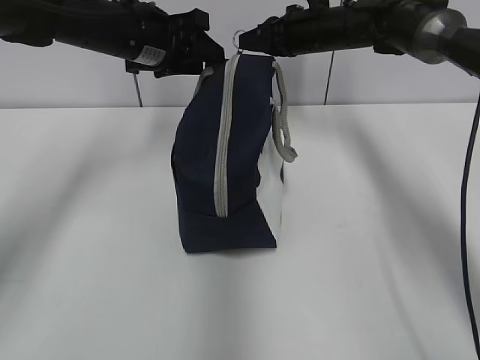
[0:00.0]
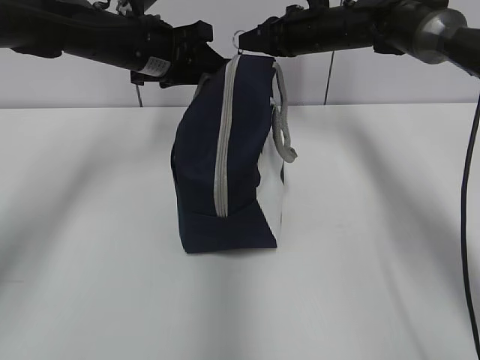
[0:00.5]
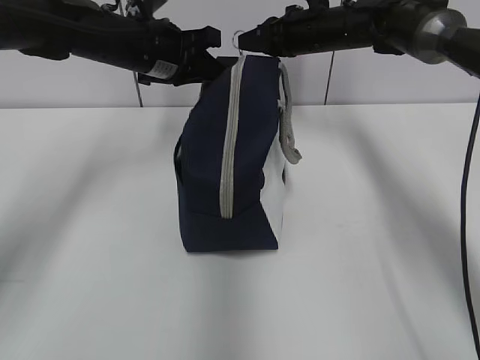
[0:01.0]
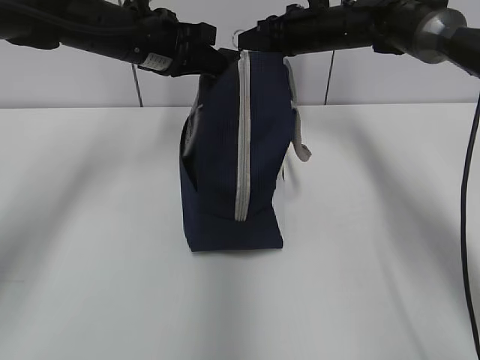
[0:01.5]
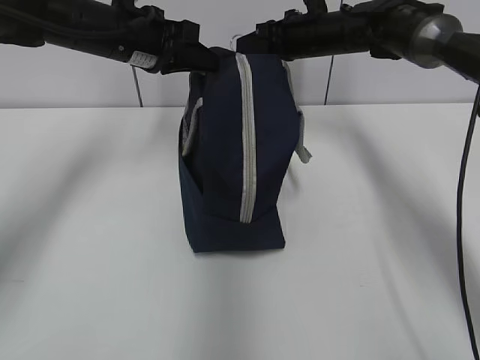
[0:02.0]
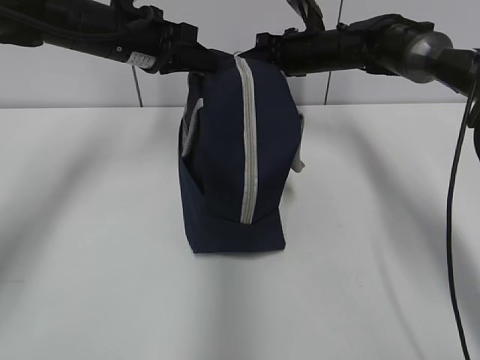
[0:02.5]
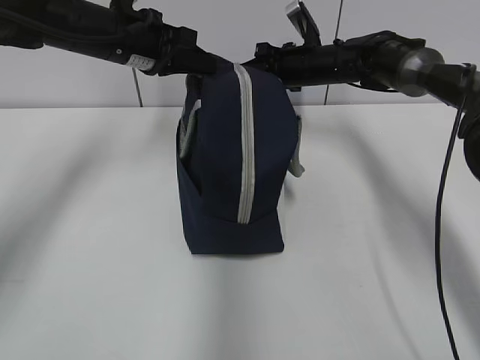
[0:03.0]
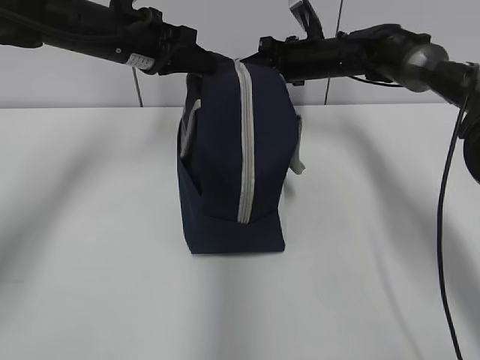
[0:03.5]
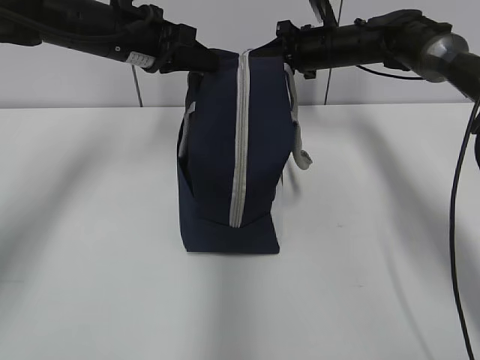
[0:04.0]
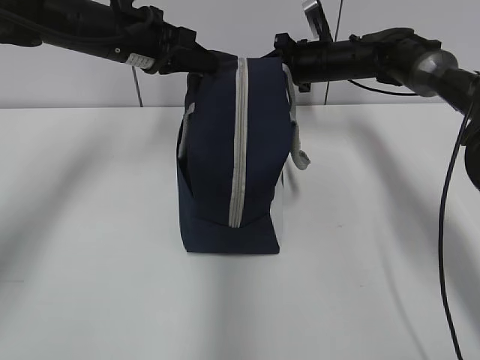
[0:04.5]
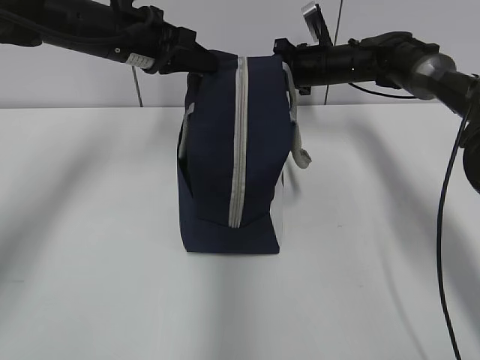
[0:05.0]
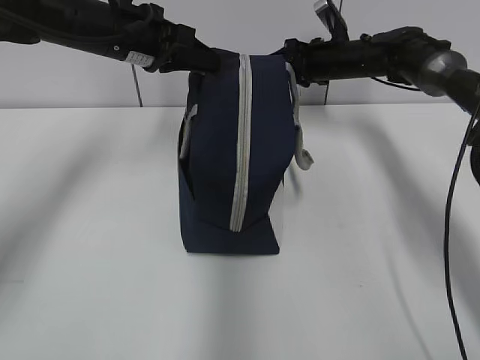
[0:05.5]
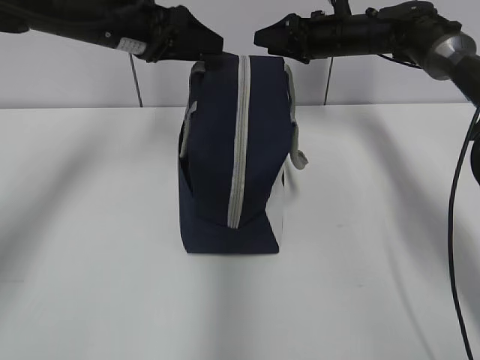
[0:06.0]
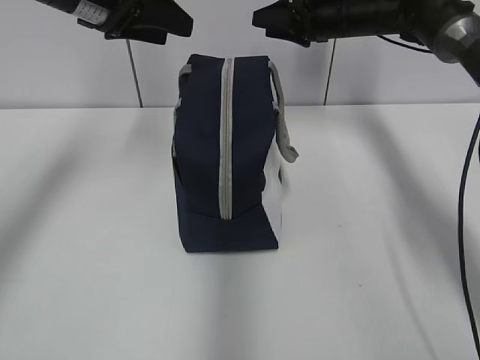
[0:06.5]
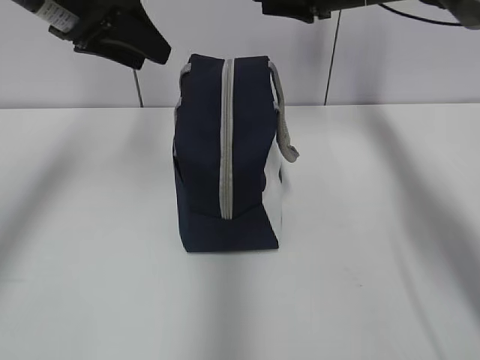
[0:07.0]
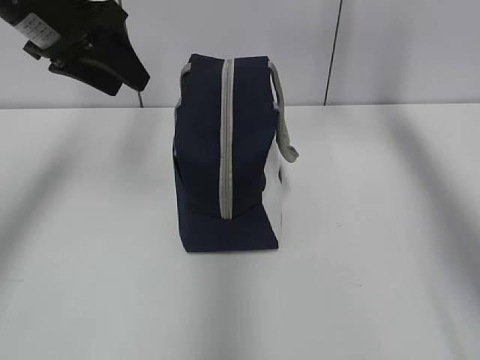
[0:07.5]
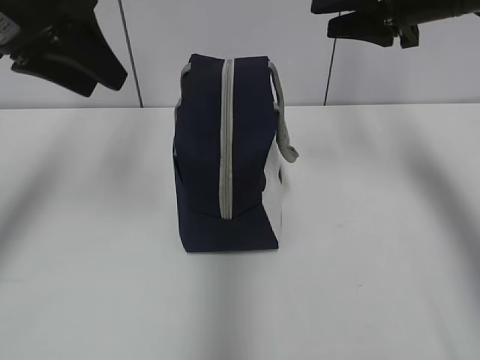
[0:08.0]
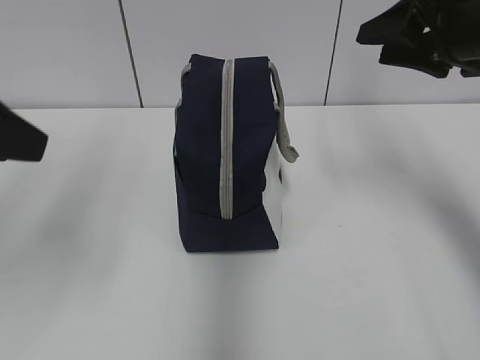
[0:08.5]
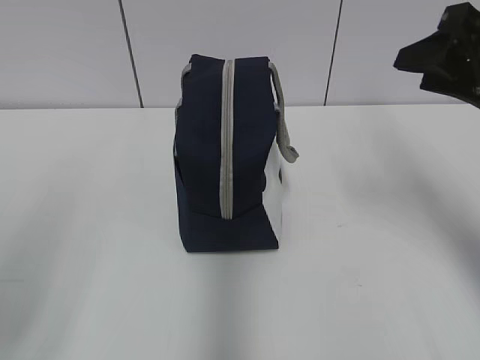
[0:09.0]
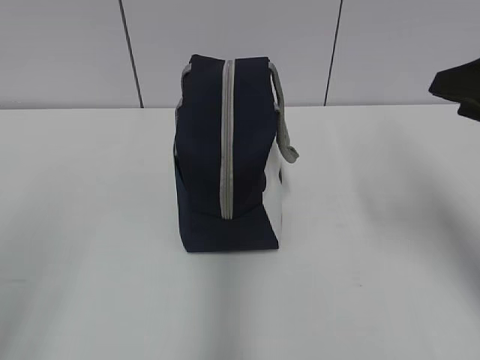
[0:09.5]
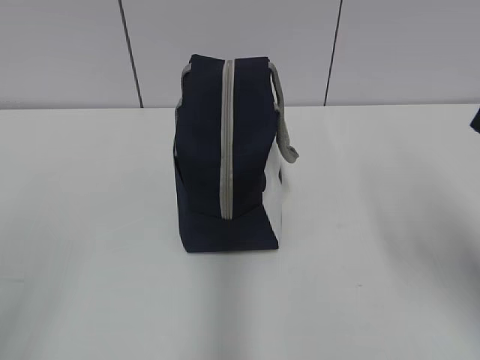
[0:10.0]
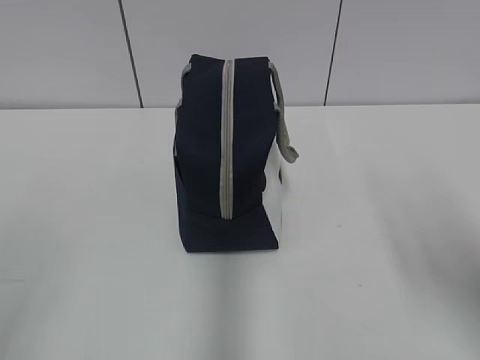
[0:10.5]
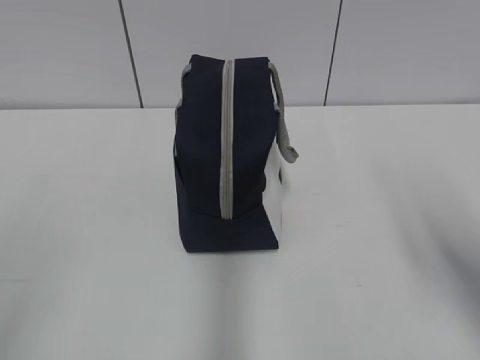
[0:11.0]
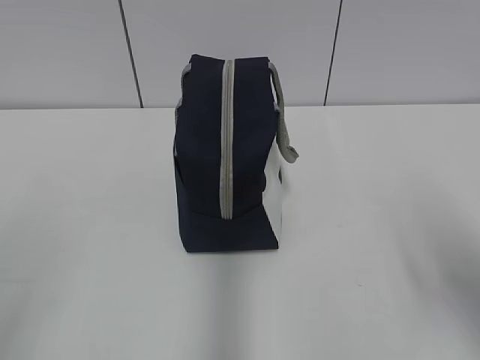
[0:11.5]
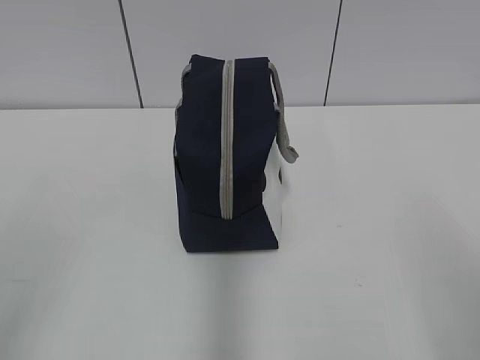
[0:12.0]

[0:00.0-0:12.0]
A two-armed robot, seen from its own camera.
Step, 0:00.0 to 0:05.0: Pull the zipper with your right hand.
0:00.0 to 0:02.0: The left gripper closes its fingers.
0:04.0 to 0:06.0: The right gripper opens. Meanwhile the left gripper opens.
0:06.0 to 0:08.0: The right gripper goes some 20 cm backward and upward. Meanwhile the left gripper heads backward, upward and to the left, covering approximately 15 cm.
0:08.0 to 0:10.0: Both grippers move backward, about 25 cm.
0:10.0 to 0:12.0: The right gripper moves backward, approximately 10 cm.

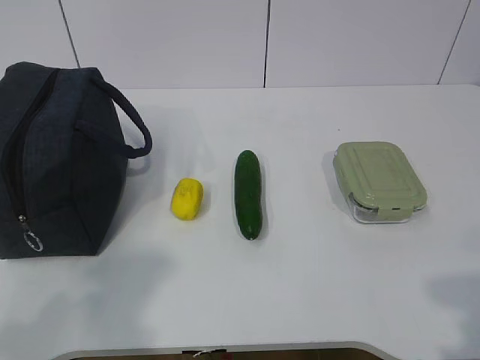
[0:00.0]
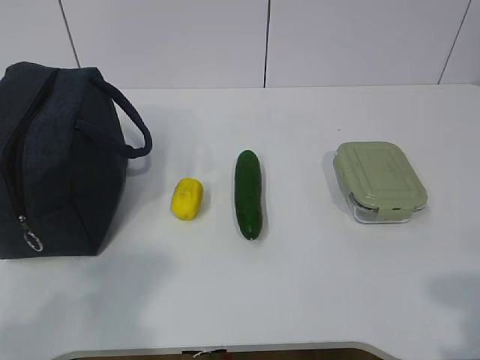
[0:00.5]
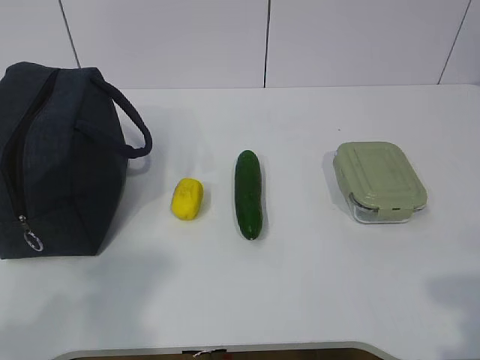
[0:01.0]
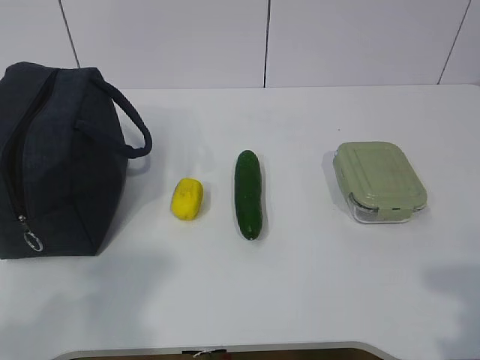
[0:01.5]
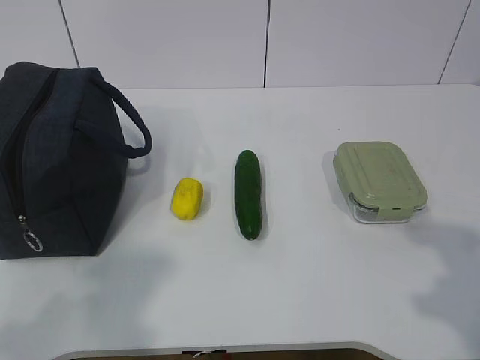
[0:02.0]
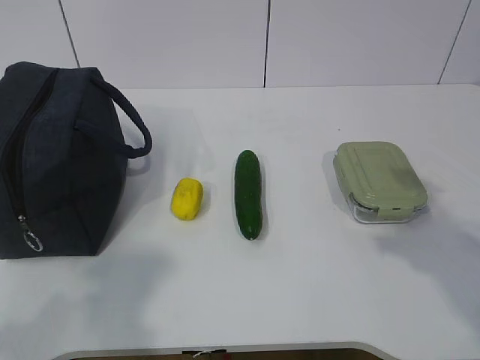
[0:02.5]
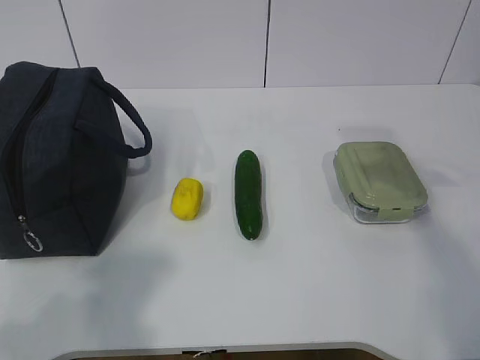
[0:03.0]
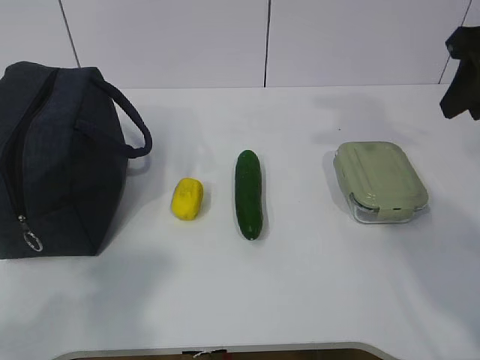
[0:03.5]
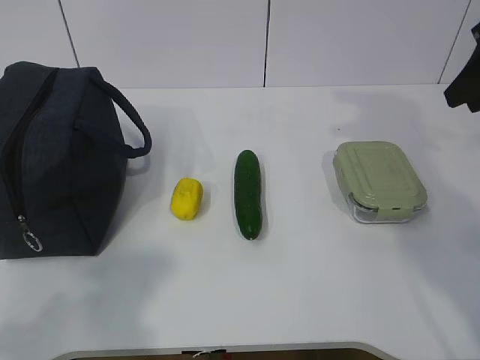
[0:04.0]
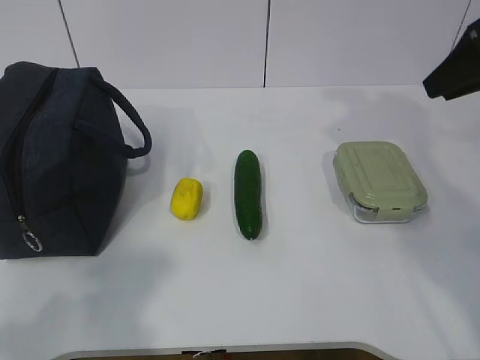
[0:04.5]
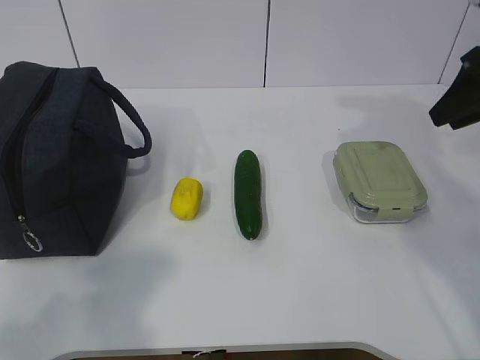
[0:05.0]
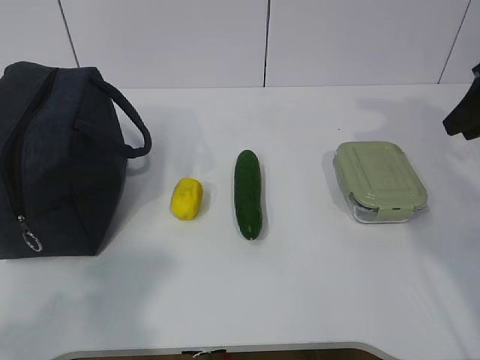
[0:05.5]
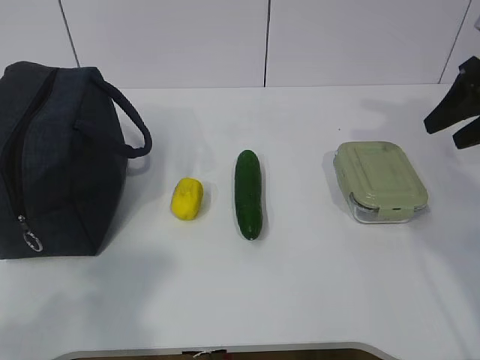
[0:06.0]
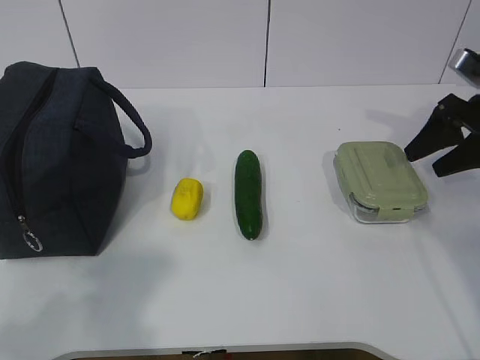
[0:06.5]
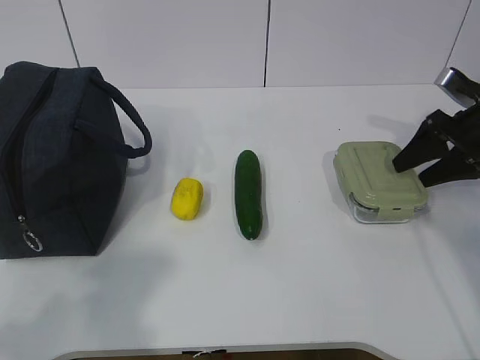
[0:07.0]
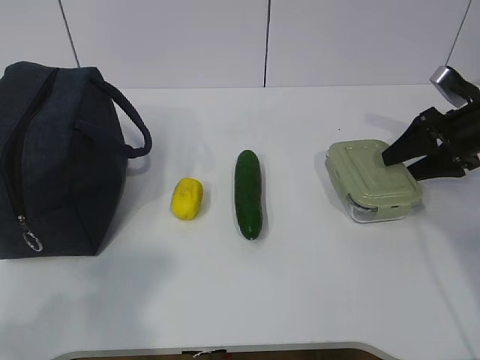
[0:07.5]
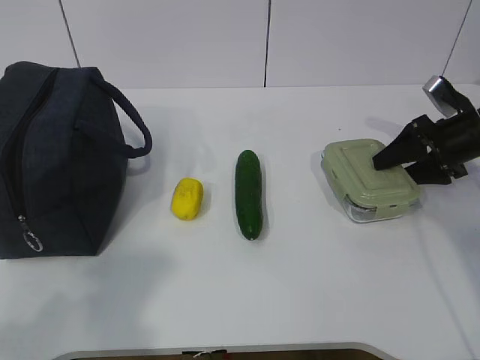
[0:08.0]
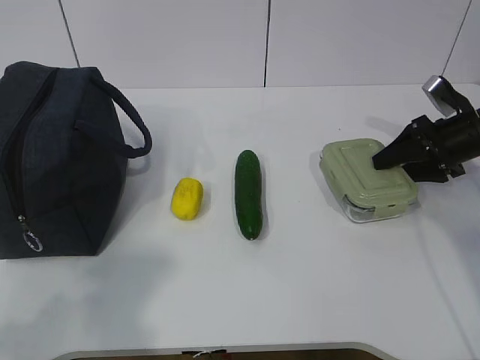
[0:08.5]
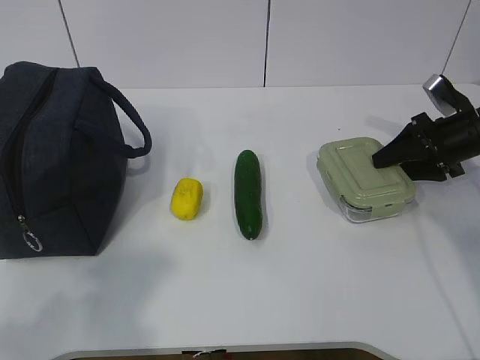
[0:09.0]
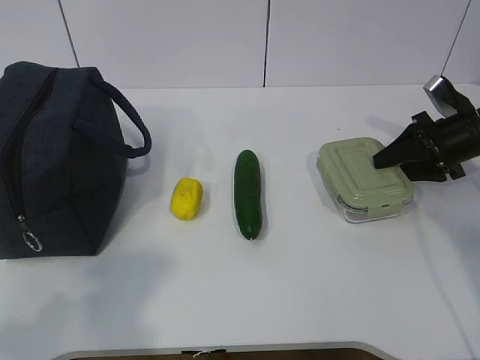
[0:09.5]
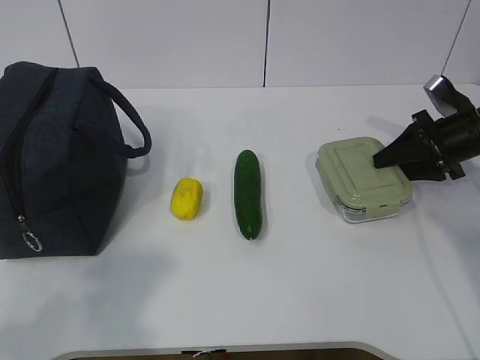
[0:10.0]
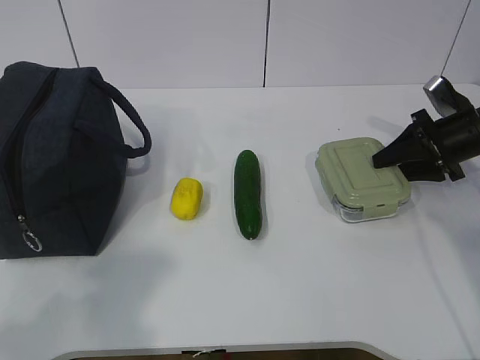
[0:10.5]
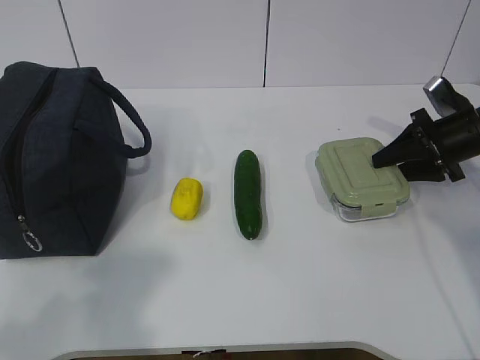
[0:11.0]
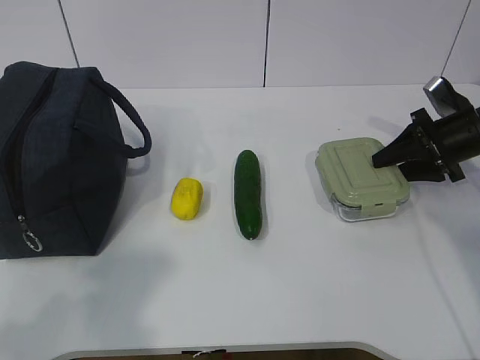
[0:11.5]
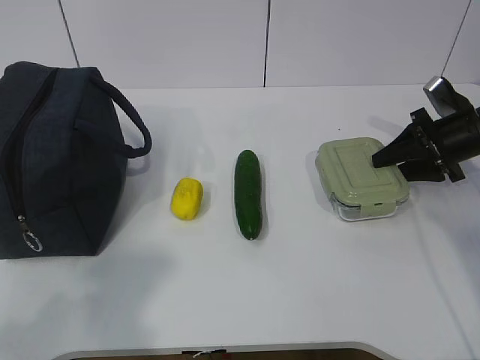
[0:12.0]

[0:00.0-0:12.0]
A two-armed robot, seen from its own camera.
Step, 0:00.0 to 0:08.0: Grab the lunch box with your right hand.
0:02.0 to 0:04.0: The right gripper heads forward, covering roughly 30 cm.
0:04.0 to 0:06.0: The right gripper is displaced downward by approximately 5 cm.
0:06.0 to 0:08.0: The right gripper shifts about 10 cm downward.
0:08.0 to 0:10.0: Both grippers stay about where they are.
0:10.0 to 0:12.0: Neither gripper changes place.

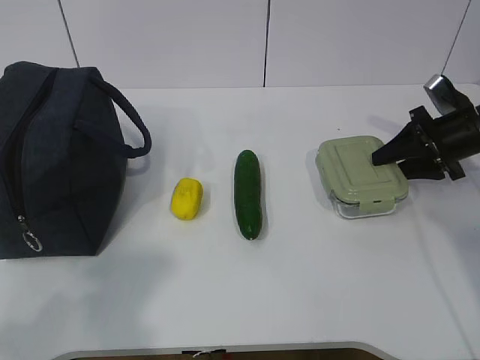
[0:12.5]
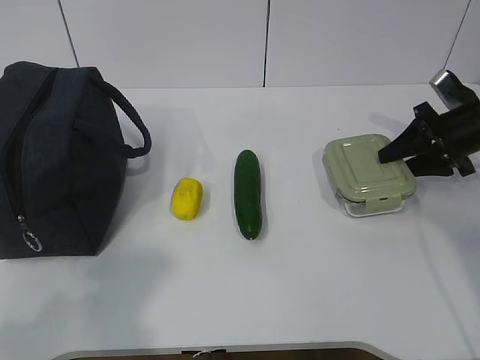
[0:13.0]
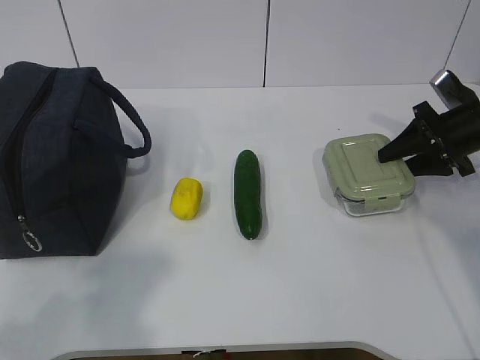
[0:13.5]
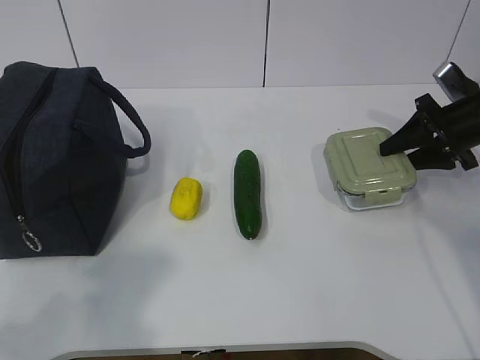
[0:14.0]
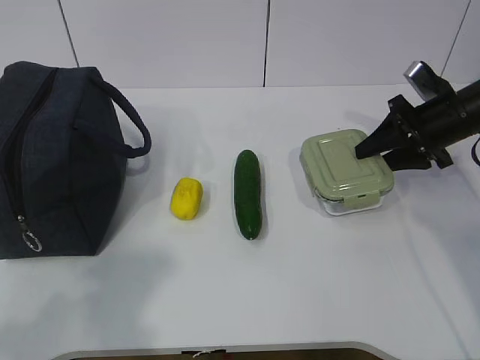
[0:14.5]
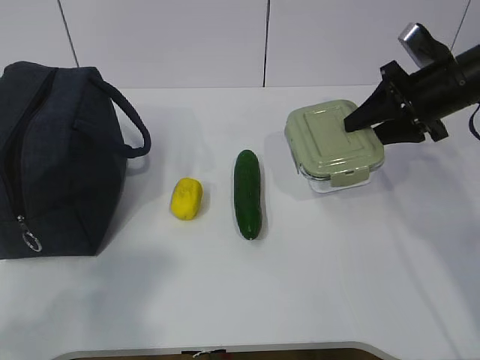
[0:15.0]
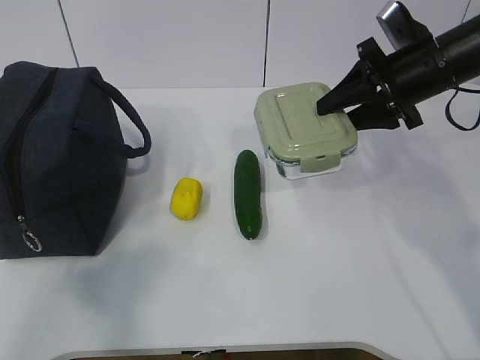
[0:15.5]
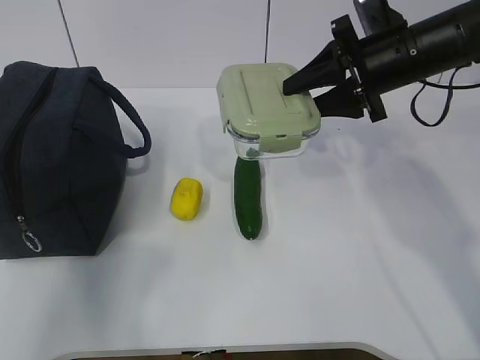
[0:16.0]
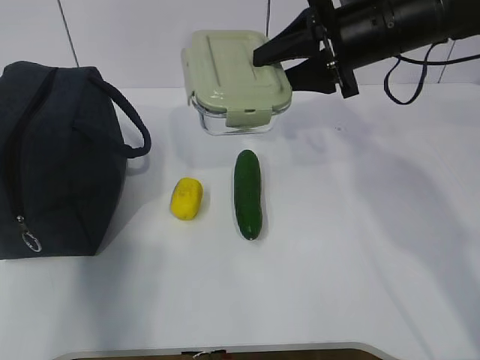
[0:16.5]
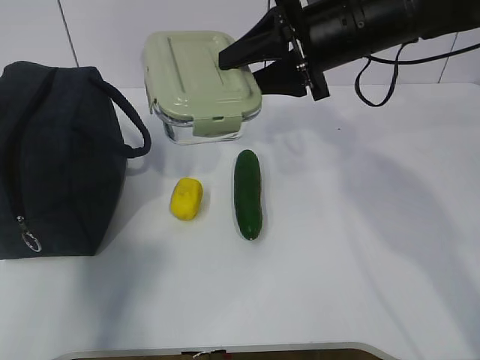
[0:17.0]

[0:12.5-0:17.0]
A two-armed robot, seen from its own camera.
Step, 0:12.5 to 0:16.0: Grab the lunch bag with your left hand.
0:12.5 to 0:14.5: The grippers make only small movements.
0:14.5 to 0:17.0: The left gripper is displaced forward by about 30 cm, while the right gripper heads to the left and upward, covering roughly 20 cm.
